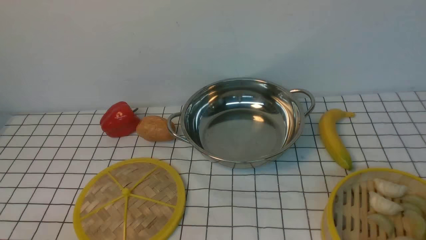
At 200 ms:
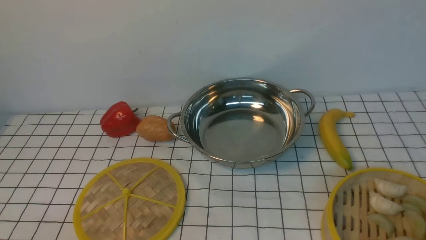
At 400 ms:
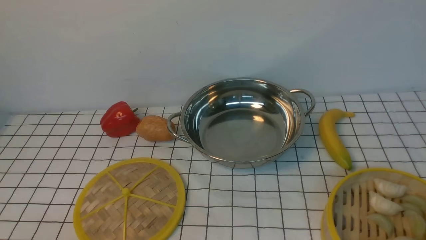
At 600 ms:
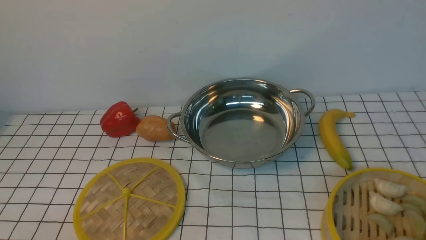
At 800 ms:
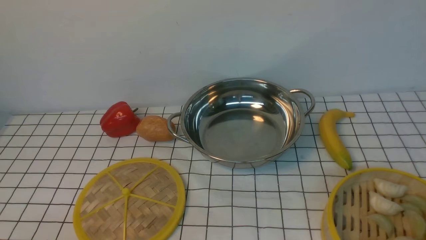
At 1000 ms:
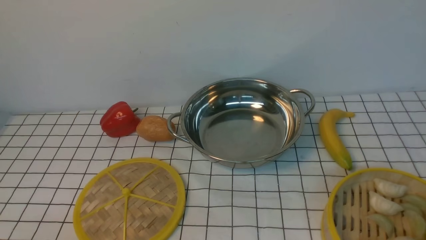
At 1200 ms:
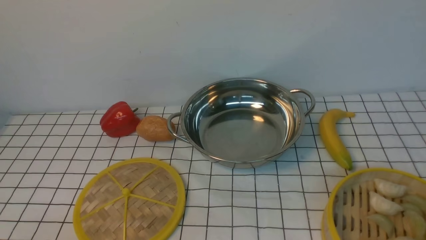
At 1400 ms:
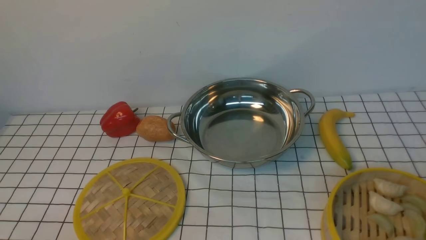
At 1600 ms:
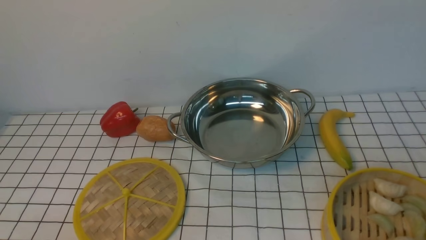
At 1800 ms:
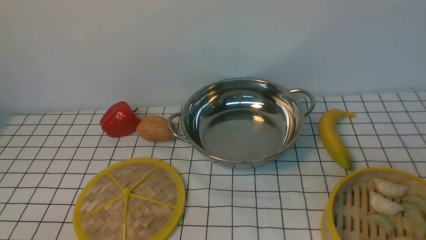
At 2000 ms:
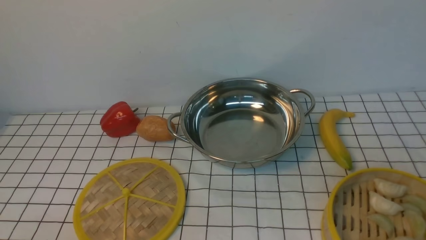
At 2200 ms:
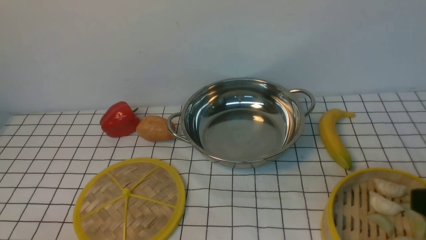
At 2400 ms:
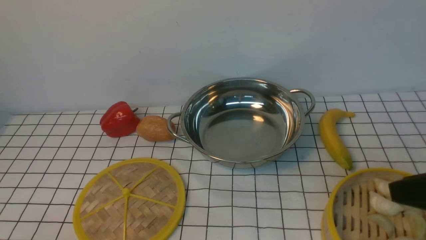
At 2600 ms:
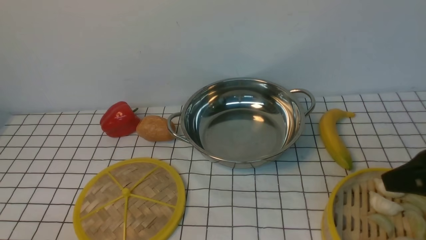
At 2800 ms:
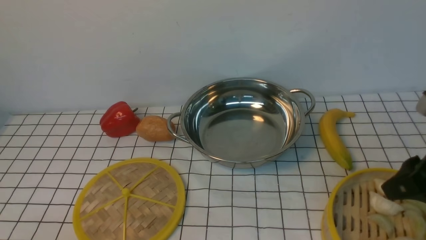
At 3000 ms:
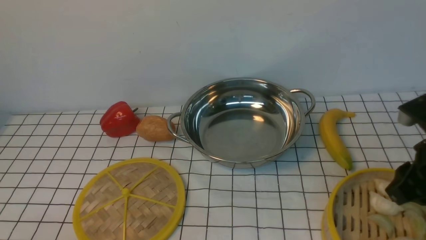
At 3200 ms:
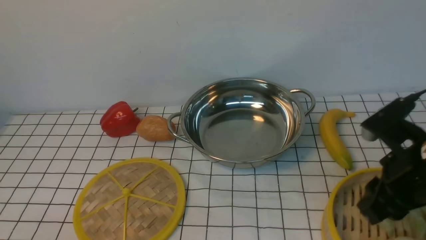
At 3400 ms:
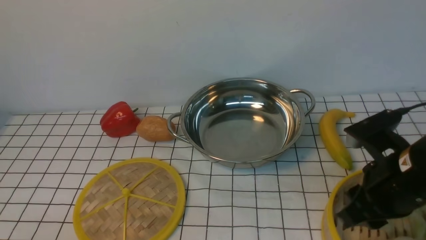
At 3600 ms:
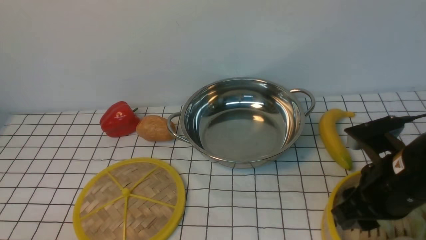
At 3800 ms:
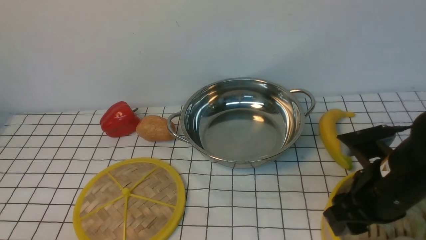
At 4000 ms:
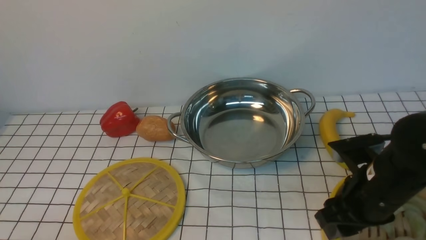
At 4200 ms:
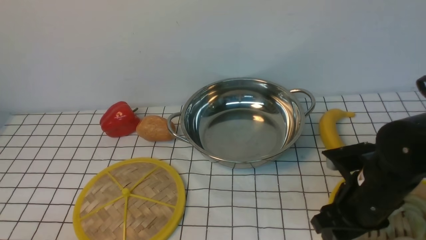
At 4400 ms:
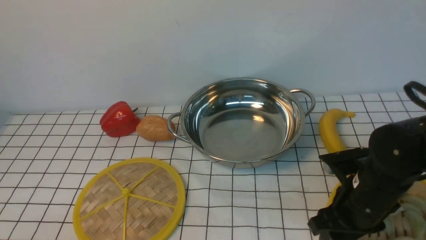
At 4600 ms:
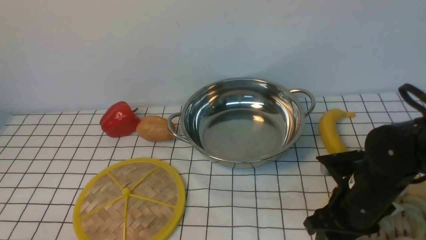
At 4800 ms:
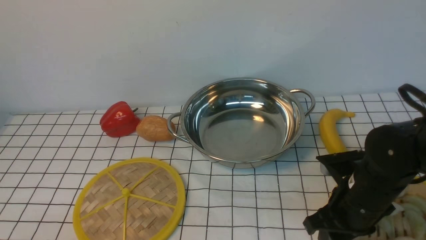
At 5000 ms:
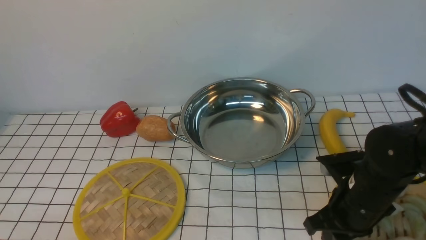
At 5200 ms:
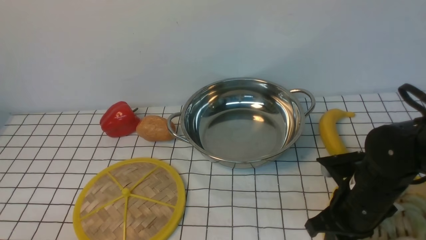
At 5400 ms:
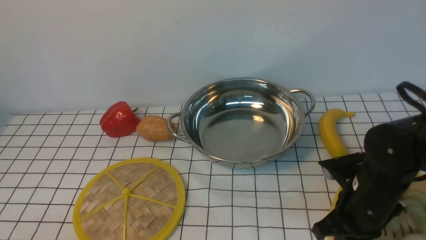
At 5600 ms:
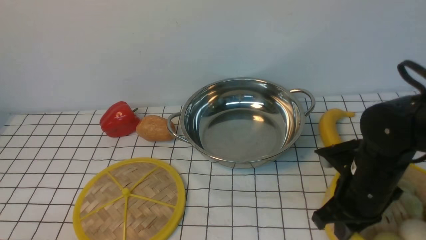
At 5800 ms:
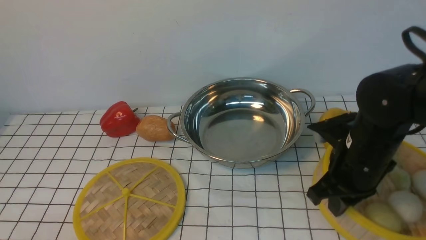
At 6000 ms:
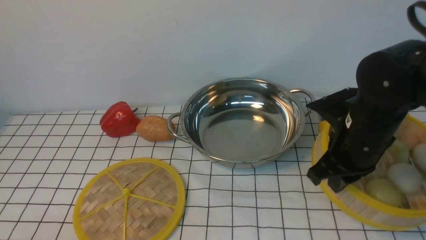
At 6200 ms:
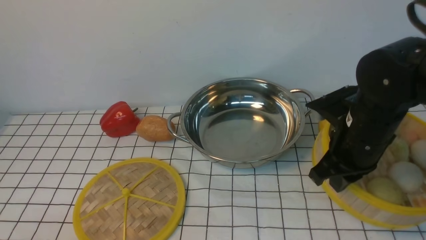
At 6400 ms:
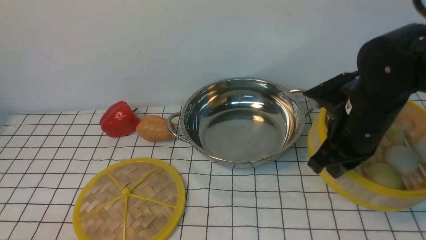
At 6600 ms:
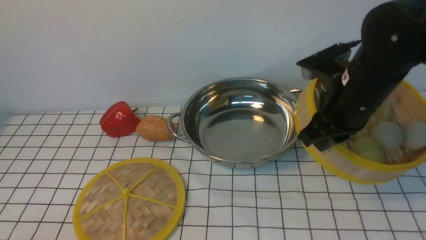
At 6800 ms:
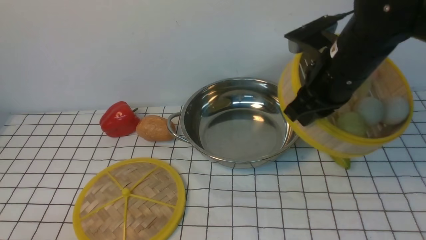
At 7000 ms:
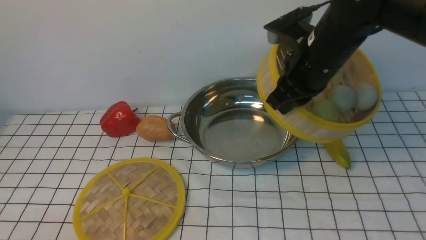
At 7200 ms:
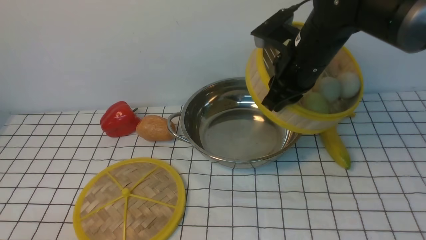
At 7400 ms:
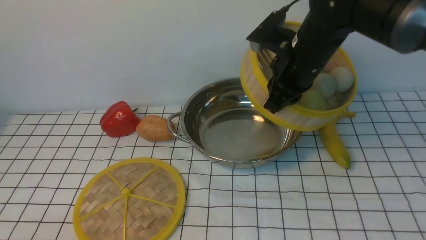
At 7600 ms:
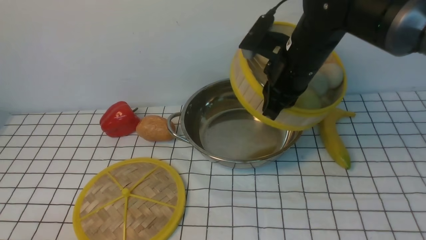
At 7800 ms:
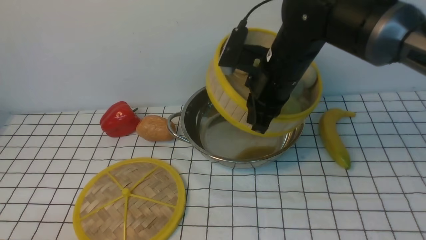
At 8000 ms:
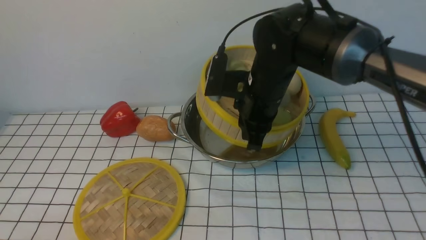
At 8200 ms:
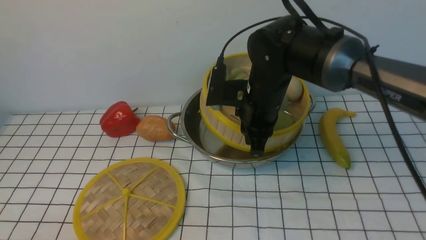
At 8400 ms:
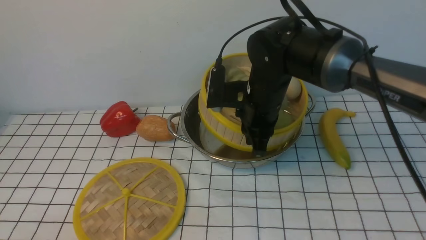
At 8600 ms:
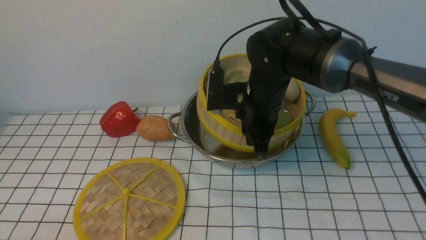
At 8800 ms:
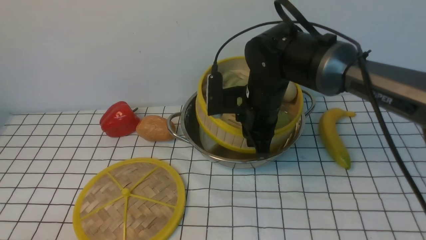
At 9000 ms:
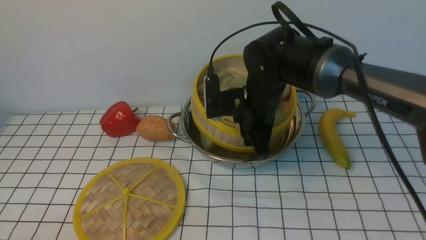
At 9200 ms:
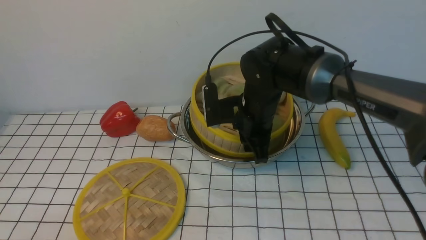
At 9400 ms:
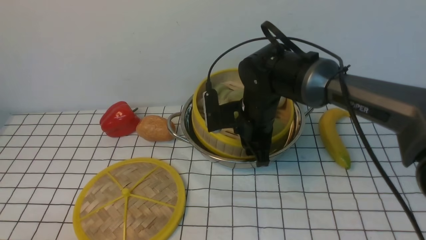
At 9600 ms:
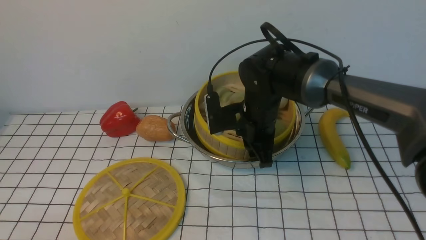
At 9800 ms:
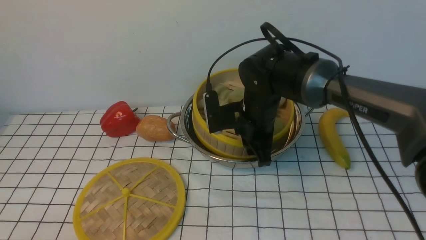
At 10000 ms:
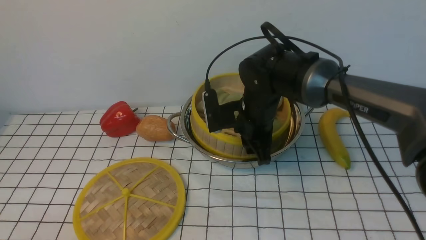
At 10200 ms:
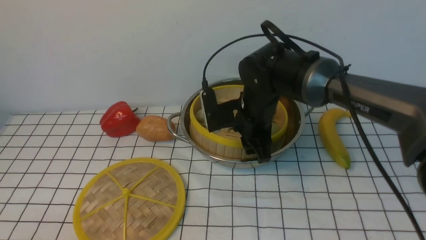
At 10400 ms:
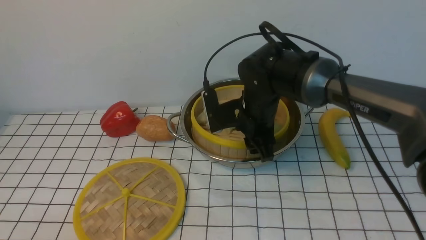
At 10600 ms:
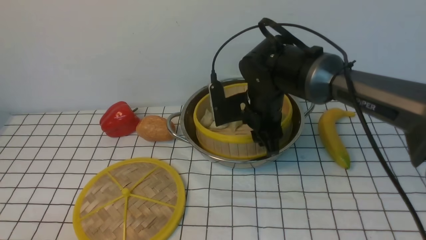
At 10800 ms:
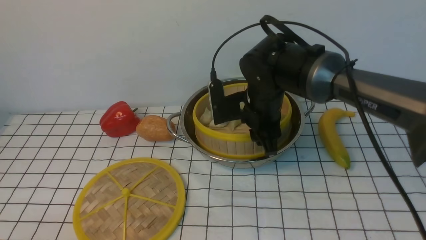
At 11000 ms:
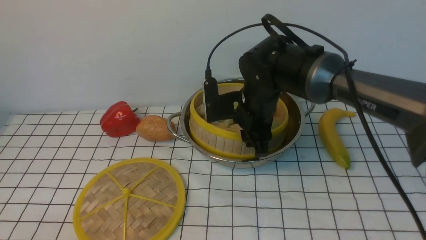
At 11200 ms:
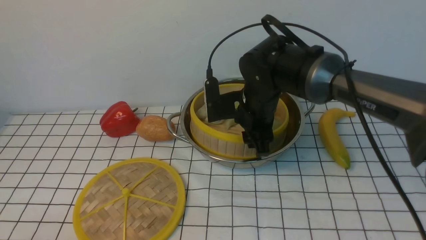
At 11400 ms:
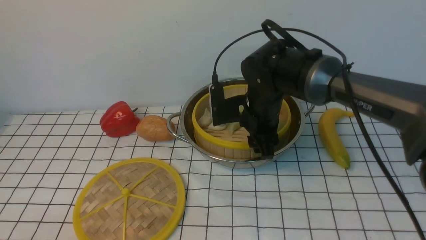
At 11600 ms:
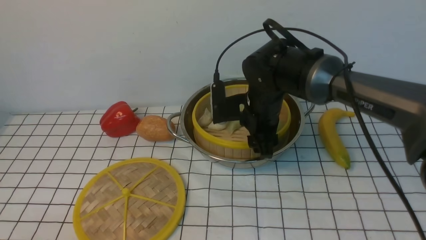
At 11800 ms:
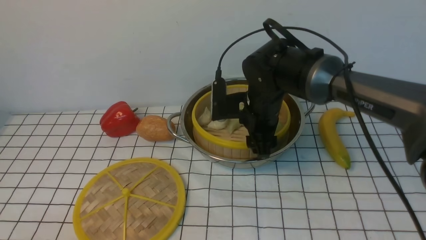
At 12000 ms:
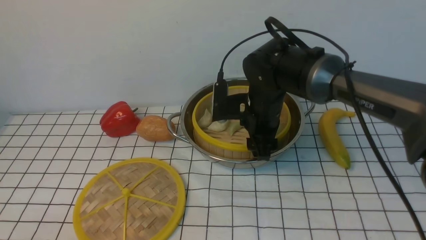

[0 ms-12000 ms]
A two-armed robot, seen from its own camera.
Task of the whole recording: place the steamer in the pot on the white tablecloth, and put the lid on the steamer.
Step, 0 ms to 5800 ms: use the right arm to lift the steamer closest to it.
1600 ms to 3000 ms: The right gripper travels forward by approximately 20 cm.
3000 ms to 4400 ms: The right gripper is displaced downward and to the left by some 10 cm.
4400 ms to 6000 ms: The right gripper travels upward by approximately 5 cm, and closes its fingers.
6000 ms to 7600 ms: The right gripper goes some 15 cm forward, to the left and upward.
7600 ms to 9000 ms: The right gripper shifts approximately 5 cm downward.
9000 ms to 10400 ms: The right gripper opens.
10400 ms to 12000 ms: The grippers make only small movements.

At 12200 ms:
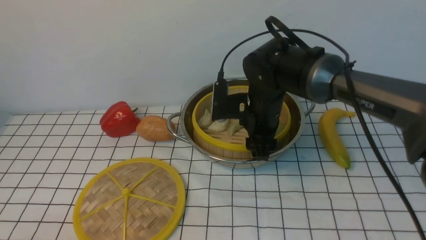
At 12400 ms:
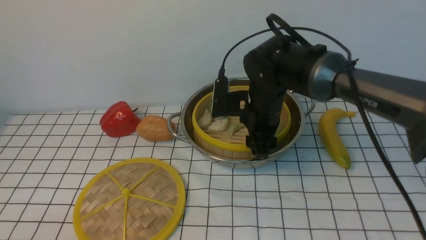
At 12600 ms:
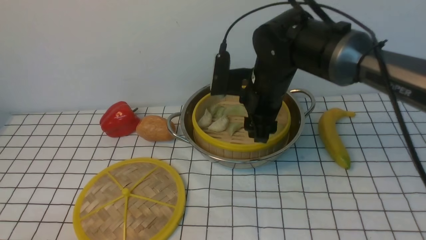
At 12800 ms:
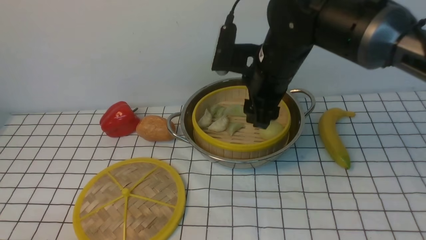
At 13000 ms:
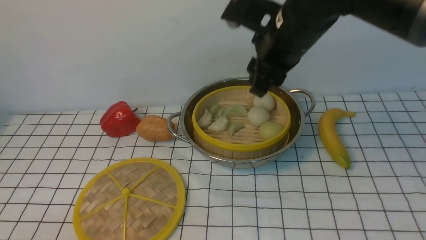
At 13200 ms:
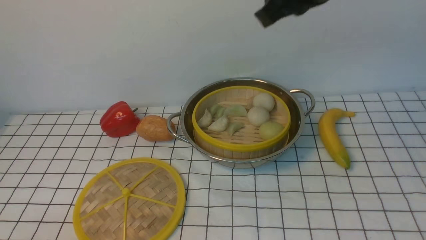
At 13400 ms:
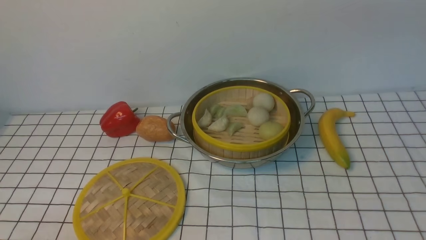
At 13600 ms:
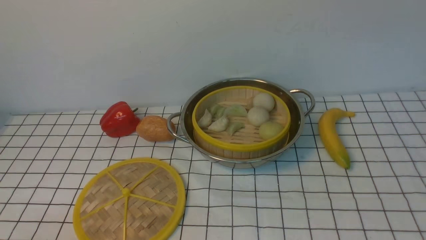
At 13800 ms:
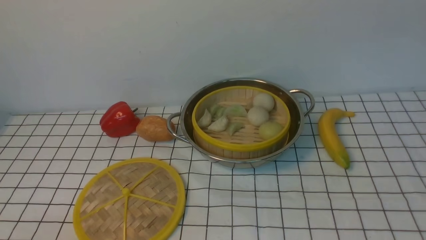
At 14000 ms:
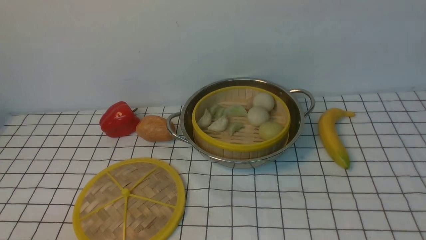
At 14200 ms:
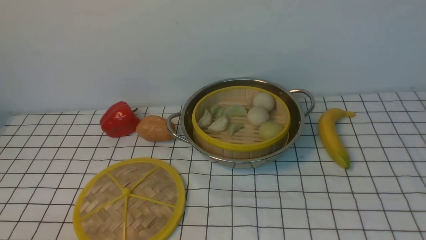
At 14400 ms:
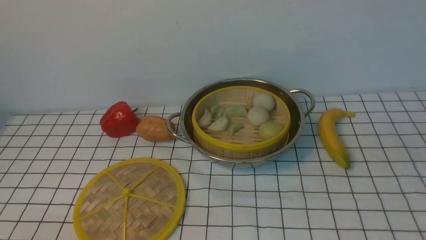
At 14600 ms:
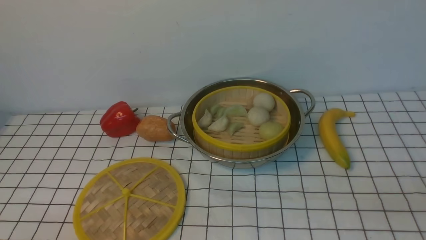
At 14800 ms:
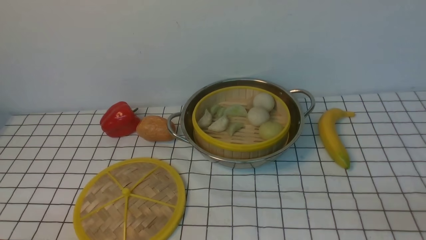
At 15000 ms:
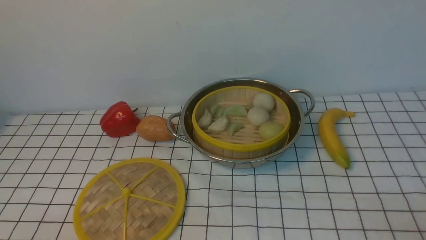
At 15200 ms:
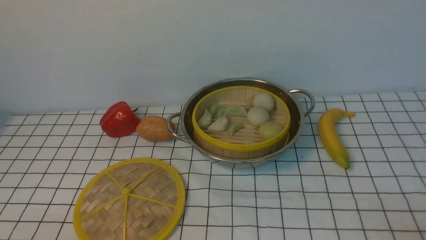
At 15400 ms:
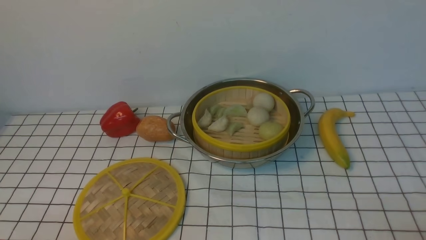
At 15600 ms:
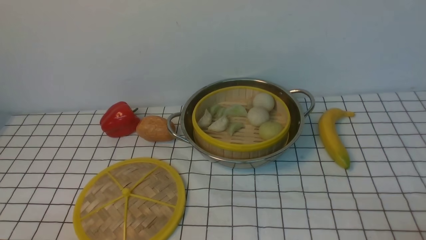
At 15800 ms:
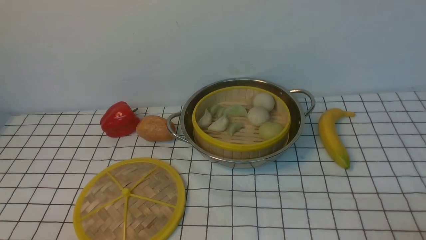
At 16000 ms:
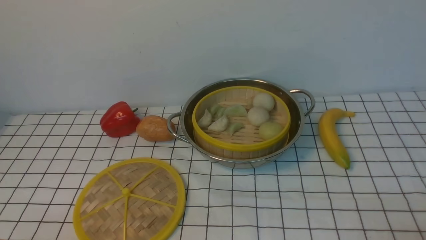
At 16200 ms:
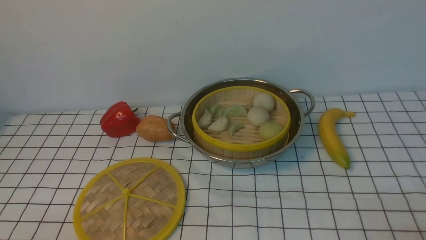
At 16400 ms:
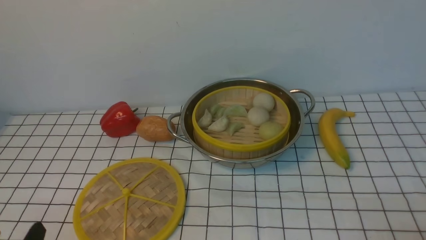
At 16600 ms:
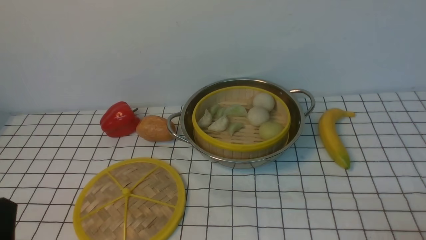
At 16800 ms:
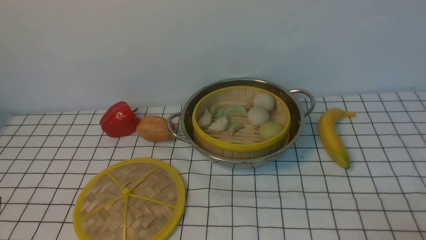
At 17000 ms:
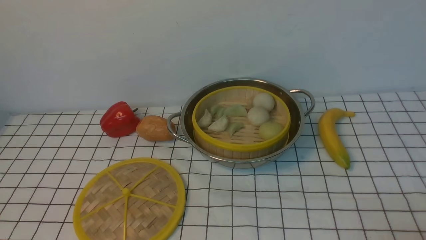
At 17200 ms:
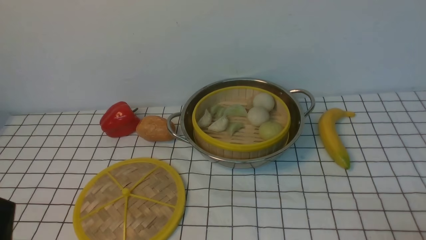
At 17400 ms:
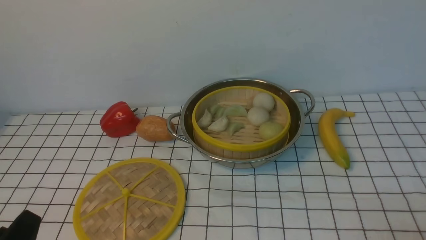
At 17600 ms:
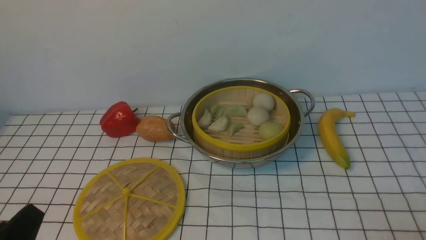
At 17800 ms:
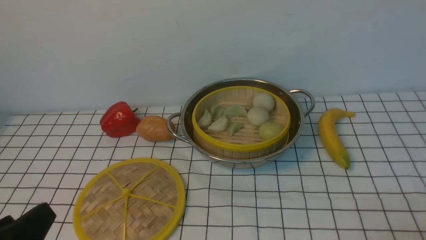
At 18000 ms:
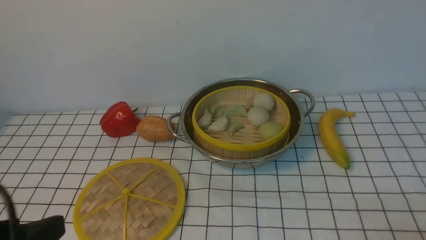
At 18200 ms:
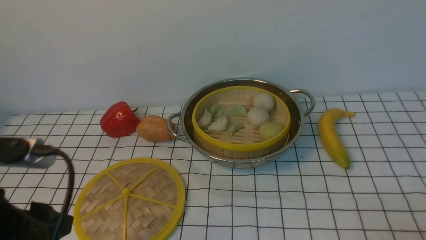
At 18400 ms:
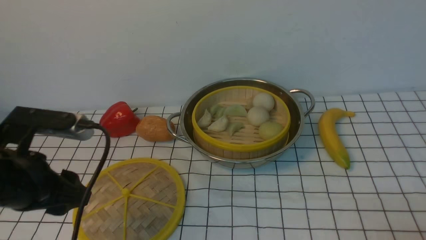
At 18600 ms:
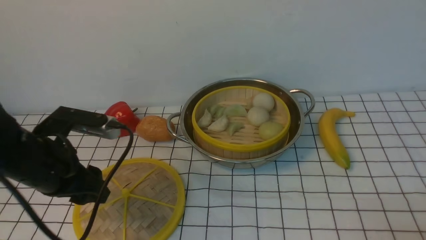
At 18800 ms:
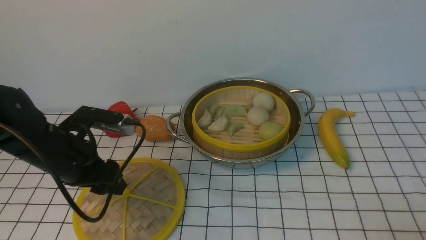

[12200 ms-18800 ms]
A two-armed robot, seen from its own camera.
Task of the whole recording: place the steamer in the pot on the white tablecloth, and put the lid on the steamer.
12200 ms to 13800 ms: The right gripper heads upward, backward and to the right, covering some 35 cm, and closes.
17200 ms to 18800 ms: The left gripper shifts roughly 25 cm forward.
